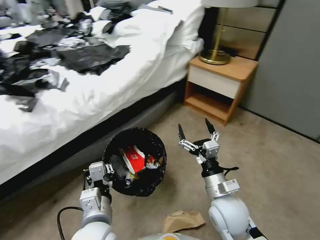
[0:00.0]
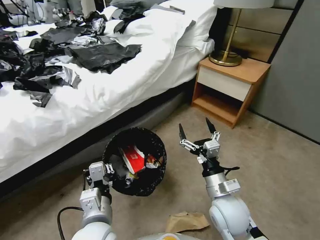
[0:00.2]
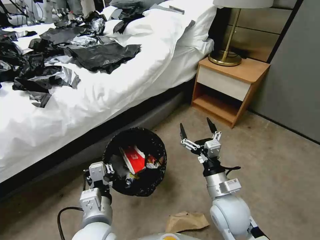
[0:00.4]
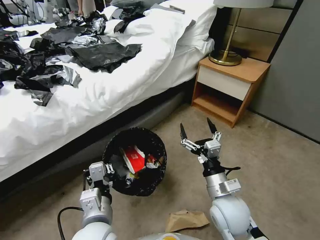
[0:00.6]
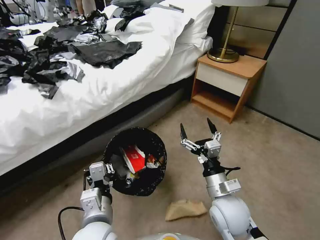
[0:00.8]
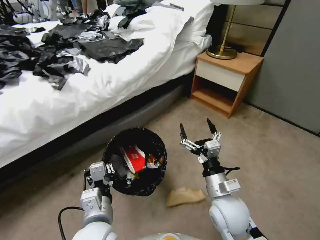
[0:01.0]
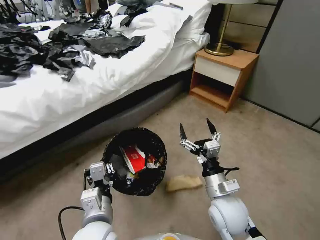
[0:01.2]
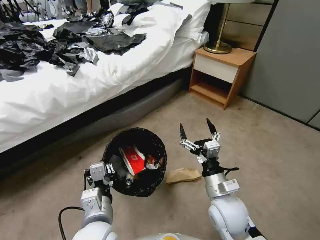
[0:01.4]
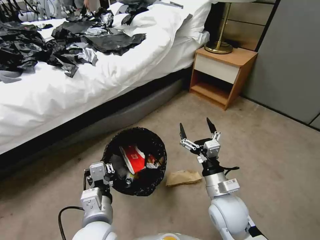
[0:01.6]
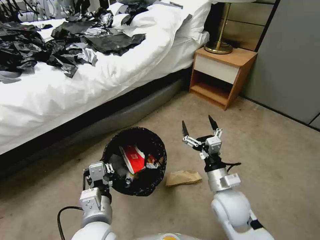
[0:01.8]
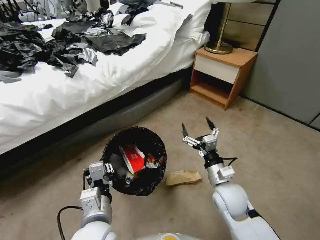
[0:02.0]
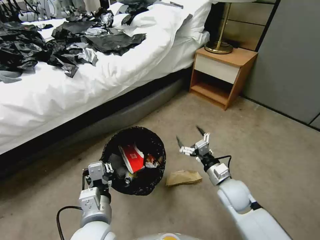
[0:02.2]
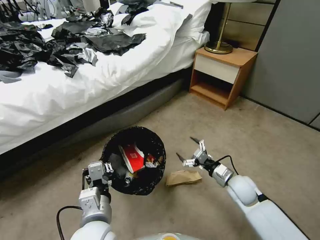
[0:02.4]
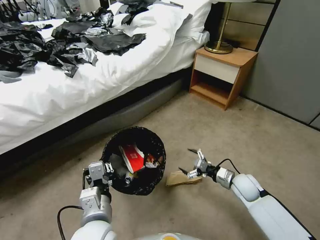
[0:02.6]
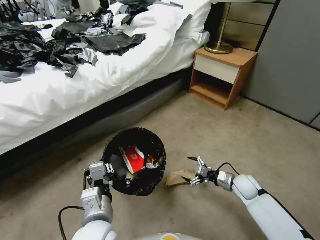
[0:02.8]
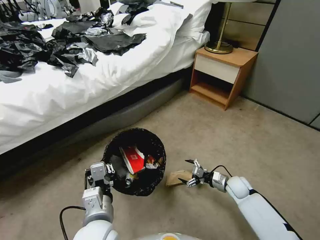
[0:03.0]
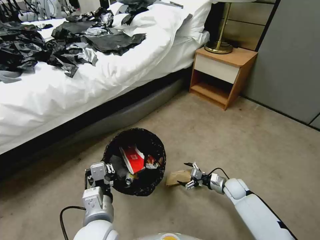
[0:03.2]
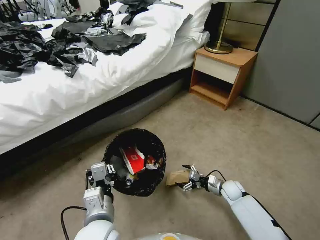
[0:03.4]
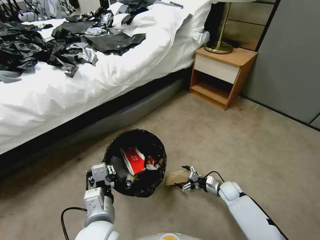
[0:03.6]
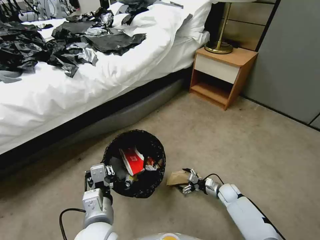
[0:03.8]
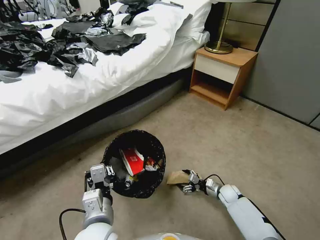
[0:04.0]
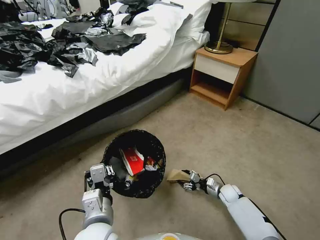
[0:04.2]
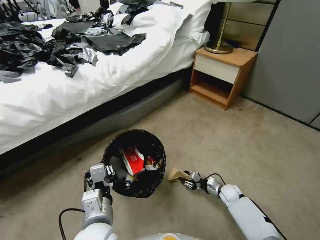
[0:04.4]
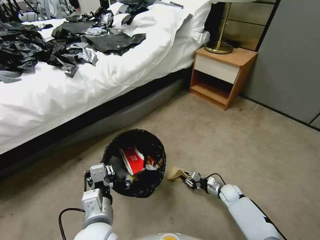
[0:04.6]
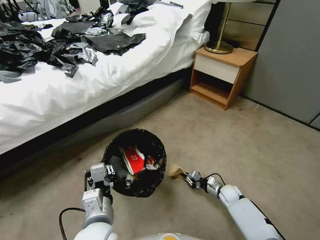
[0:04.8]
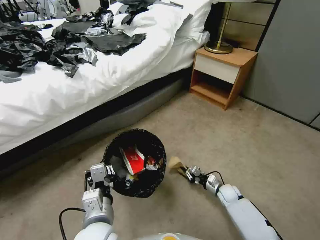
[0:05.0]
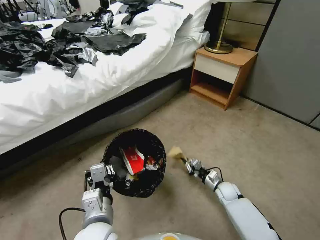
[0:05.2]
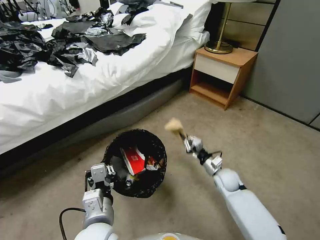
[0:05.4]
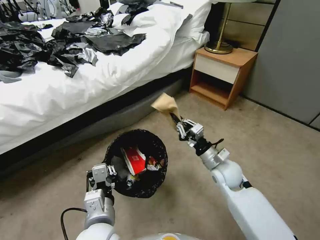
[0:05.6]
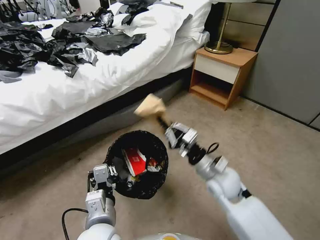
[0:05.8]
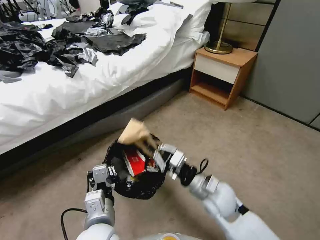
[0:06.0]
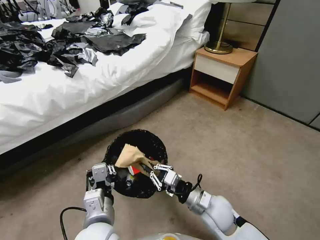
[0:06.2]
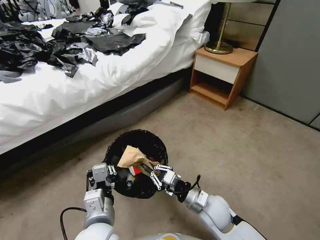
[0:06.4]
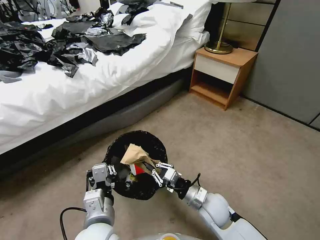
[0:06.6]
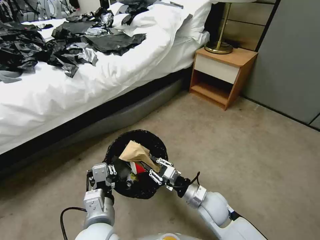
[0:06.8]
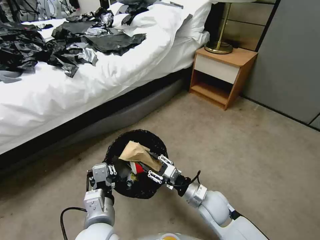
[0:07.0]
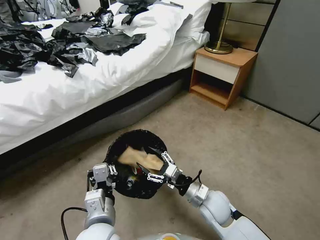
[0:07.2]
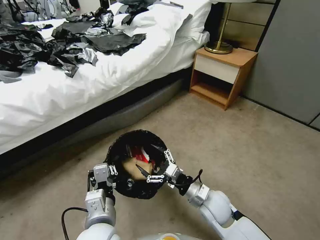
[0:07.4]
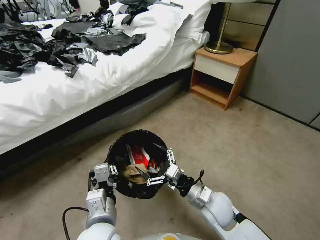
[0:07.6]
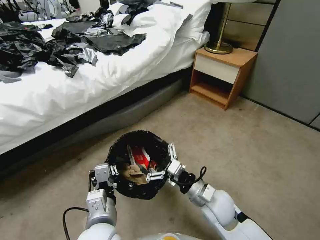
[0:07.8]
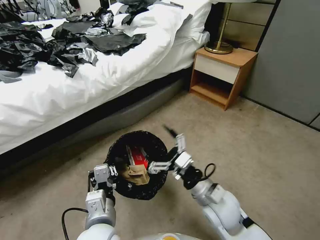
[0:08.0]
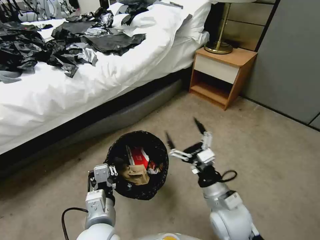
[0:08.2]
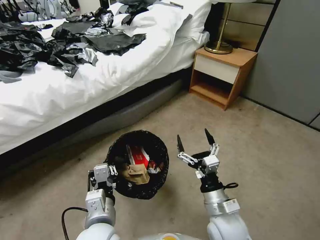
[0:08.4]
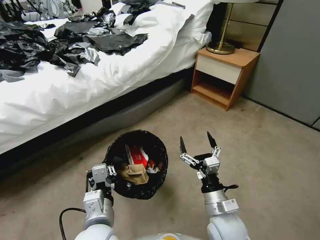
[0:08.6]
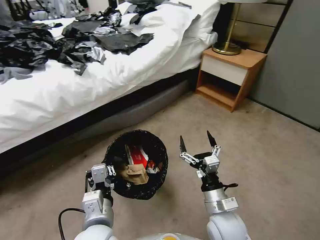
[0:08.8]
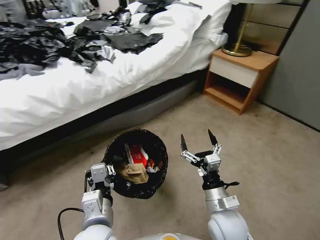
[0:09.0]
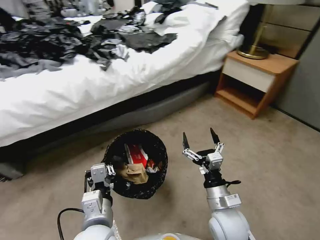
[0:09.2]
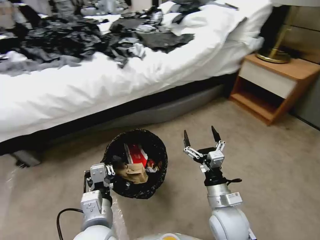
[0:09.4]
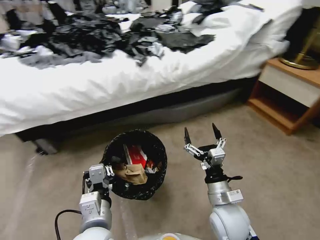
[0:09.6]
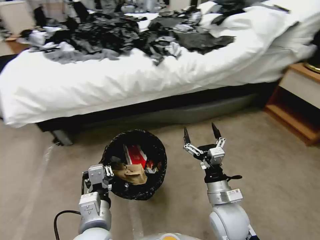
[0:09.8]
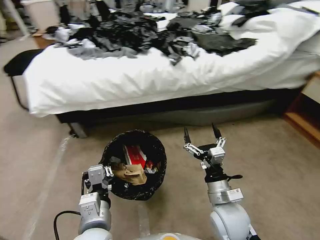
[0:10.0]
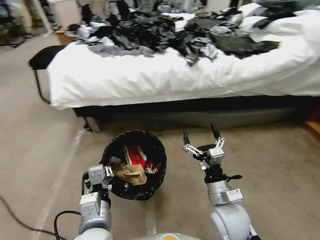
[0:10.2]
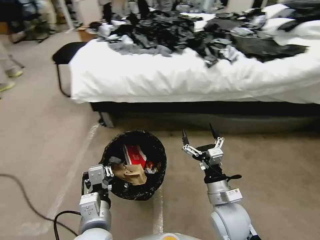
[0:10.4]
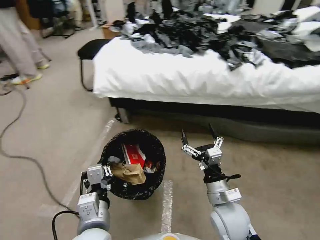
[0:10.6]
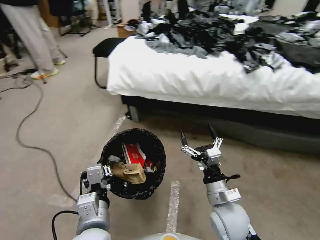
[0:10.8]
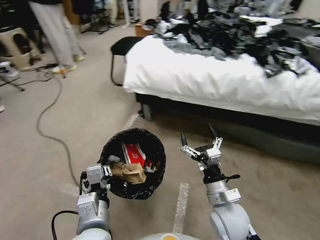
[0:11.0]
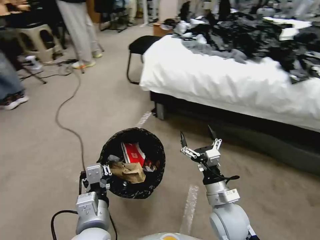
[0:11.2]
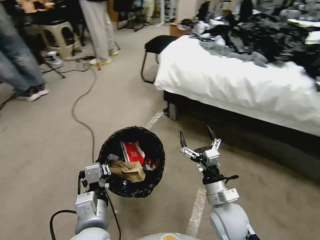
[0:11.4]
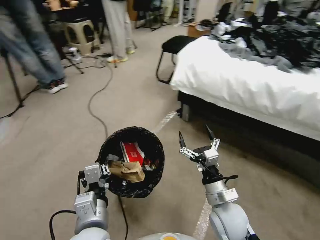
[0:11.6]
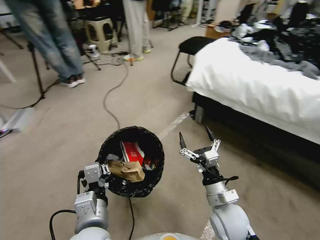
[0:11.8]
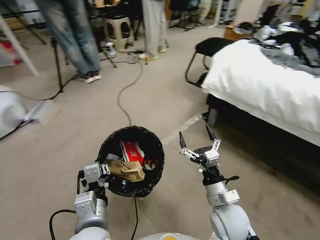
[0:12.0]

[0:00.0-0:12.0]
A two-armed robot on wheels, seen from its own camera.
Task of the whole recording: Pick up the trash bin, then pick up the garbage from the floor and place it into the trash bin.
0:01.6 to 0:03.0: The right gripper shifts roughly 25 cm downward, to the right and forward.
0:03.0 to 0:04.4: The right gripper moves downward, roughly 10 cm, and closes up.
0:04.4 to 0:06.0: The right gripper heads upward and to the left, covering about 30 cm, and closes up.
0:06.0 to 0:07.6: The right gripper opens its fingers.
0:07.6 to 0:09.0: The right gripper goes roughly 5 cm backward.

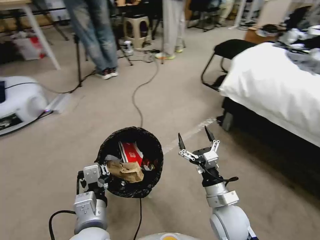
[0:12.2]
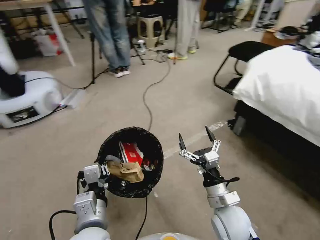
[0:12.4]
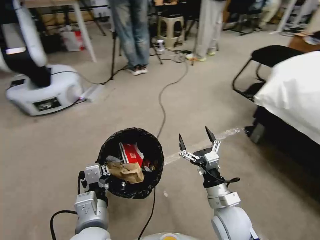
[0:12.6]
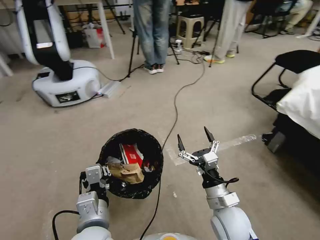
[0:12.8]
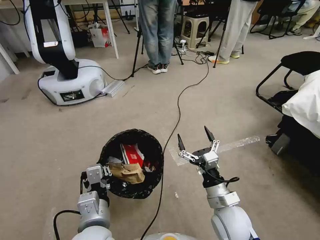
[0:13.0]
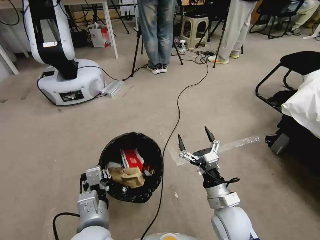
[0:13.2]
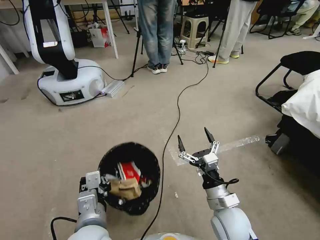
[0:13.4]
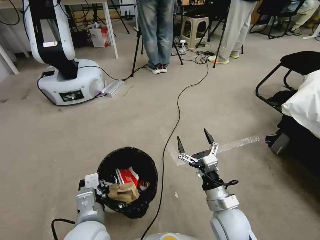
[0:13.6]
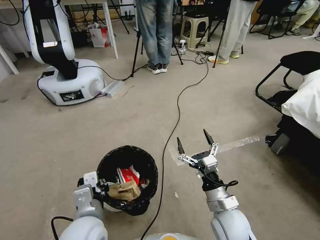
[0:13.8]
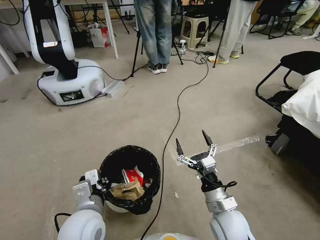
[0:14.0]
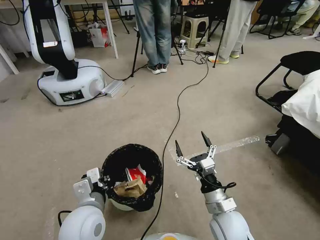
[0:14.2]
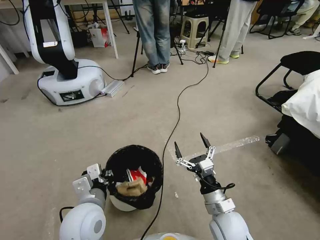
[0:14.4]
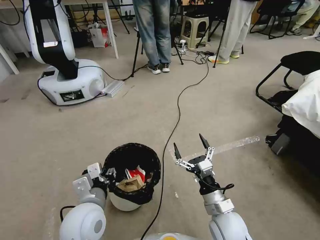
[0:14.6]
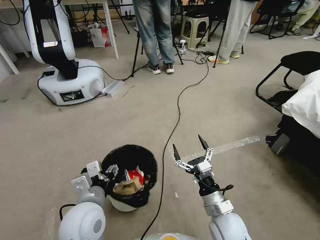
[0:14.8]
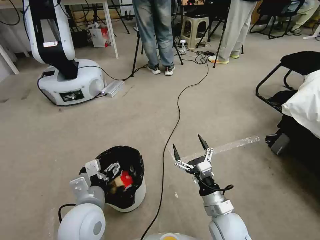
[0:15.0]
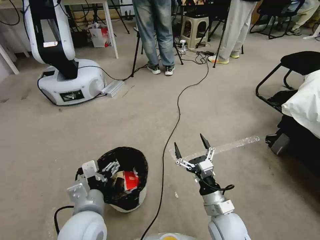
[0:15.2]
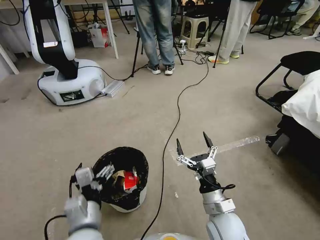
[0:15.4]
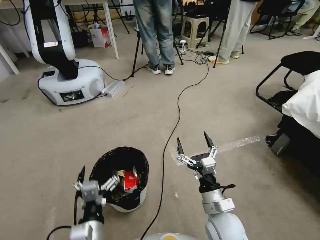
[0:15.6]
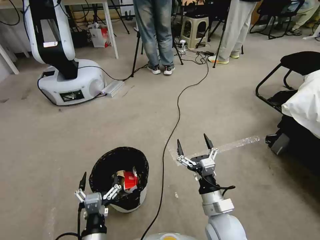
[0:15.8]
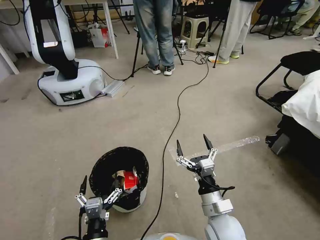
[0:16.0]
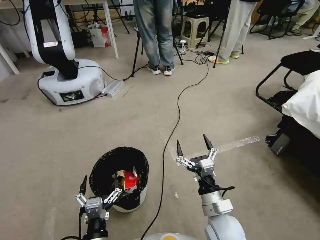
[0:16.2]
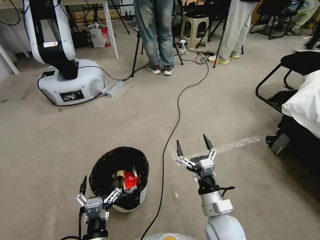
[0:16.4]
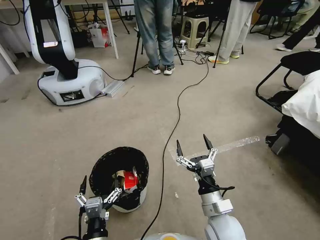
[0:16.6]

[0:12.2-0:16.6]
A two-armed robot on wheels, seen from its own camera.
Task of the whole recording: Pick up the trash bin, then pick up the garbage from the floor and place it into the trash bin.
0:13.6 to 0:15.2: The left gripper opens up.
0:15.2 to 0:16.6: The left gripper moves downward and backward, approximately 15 cm.
